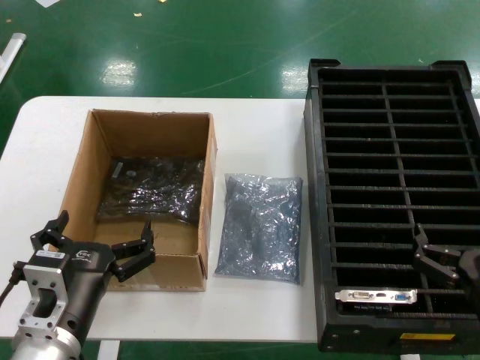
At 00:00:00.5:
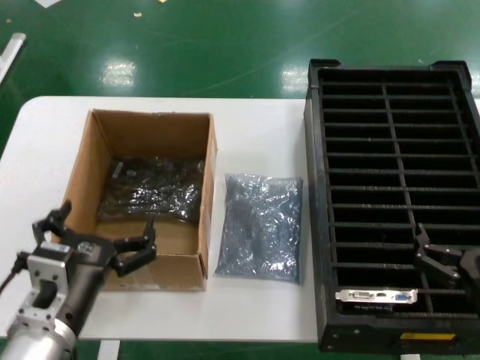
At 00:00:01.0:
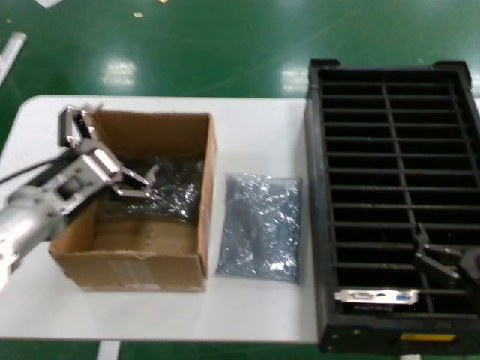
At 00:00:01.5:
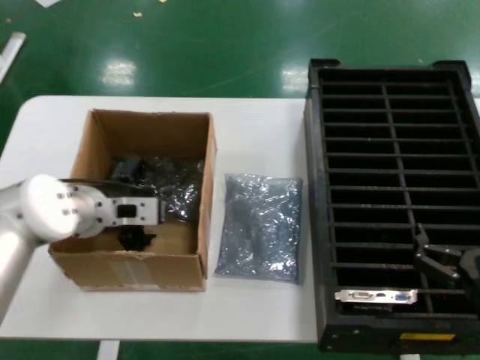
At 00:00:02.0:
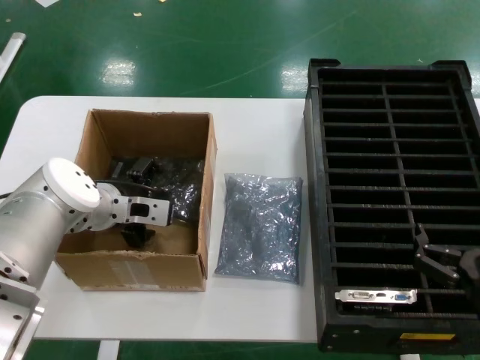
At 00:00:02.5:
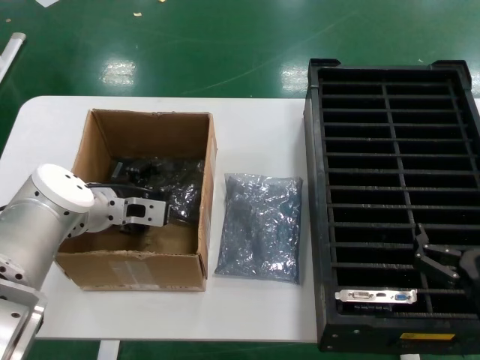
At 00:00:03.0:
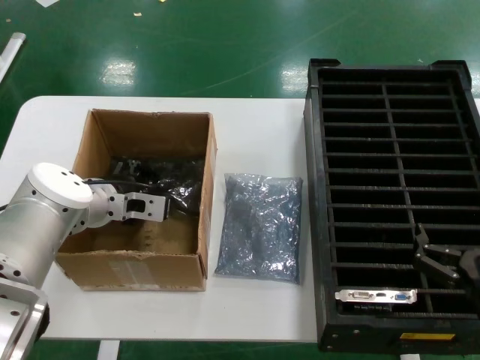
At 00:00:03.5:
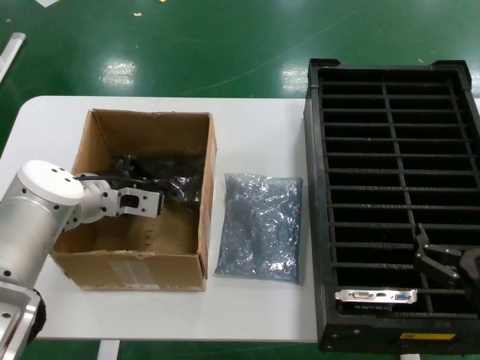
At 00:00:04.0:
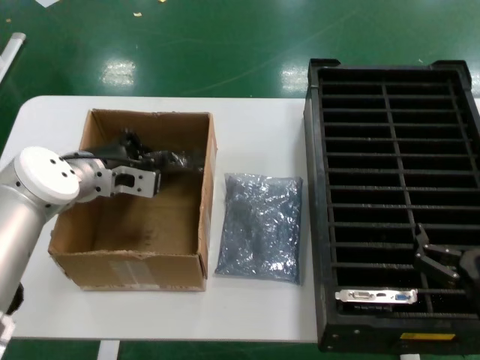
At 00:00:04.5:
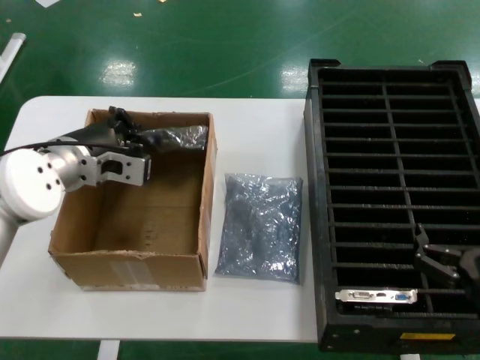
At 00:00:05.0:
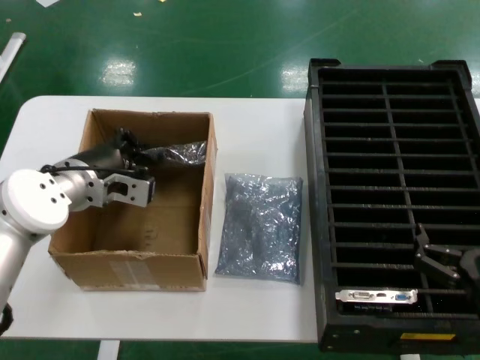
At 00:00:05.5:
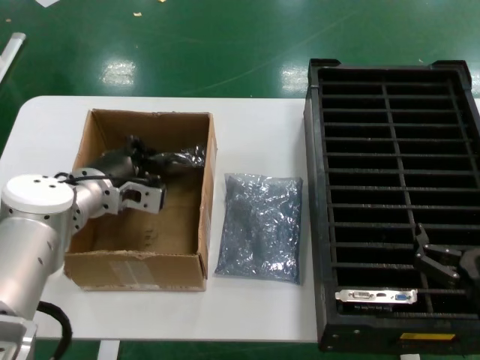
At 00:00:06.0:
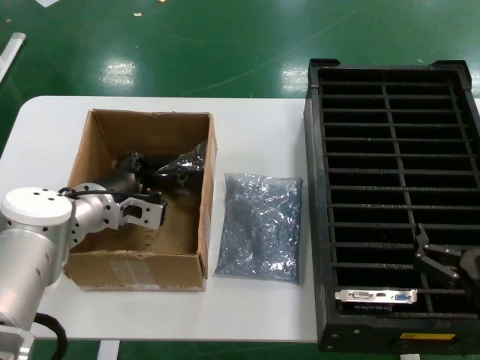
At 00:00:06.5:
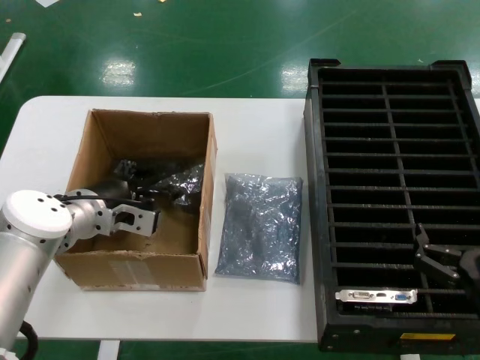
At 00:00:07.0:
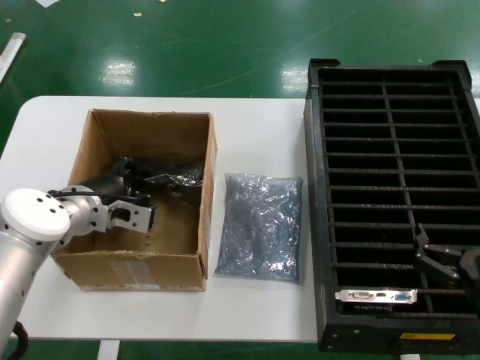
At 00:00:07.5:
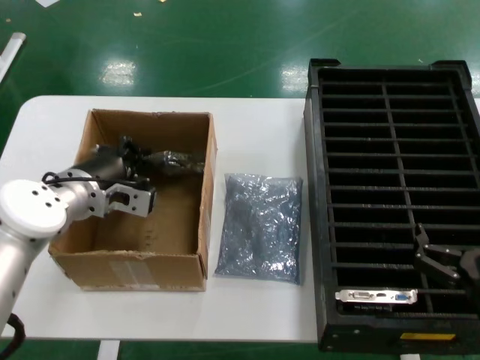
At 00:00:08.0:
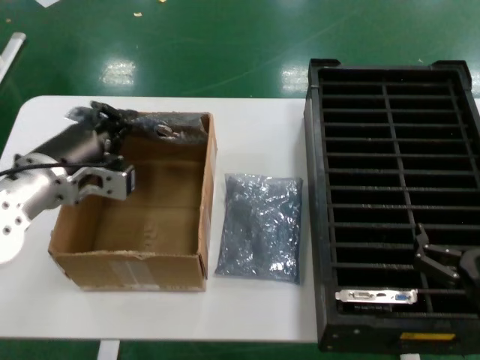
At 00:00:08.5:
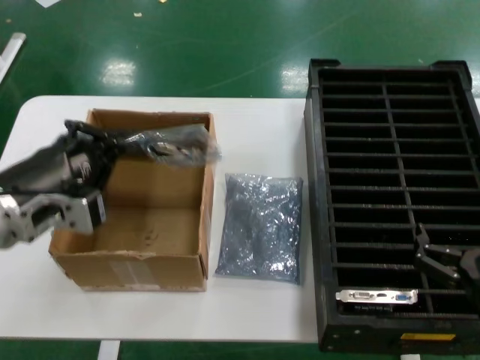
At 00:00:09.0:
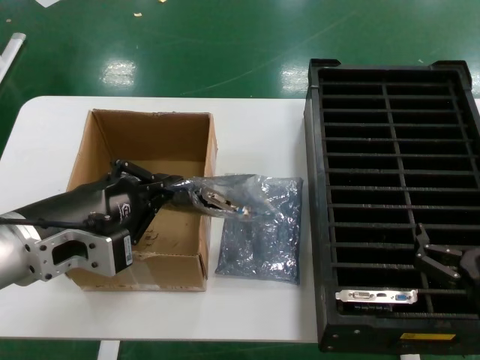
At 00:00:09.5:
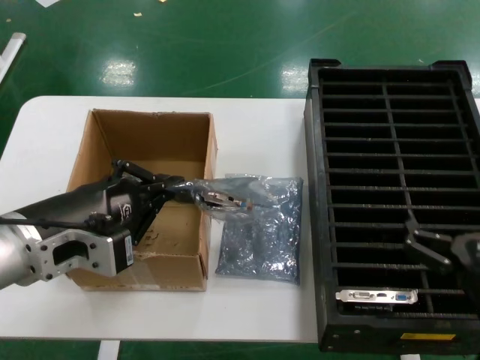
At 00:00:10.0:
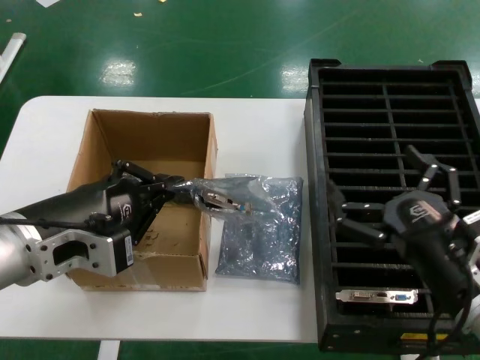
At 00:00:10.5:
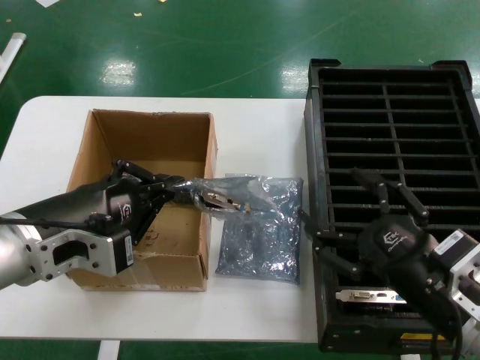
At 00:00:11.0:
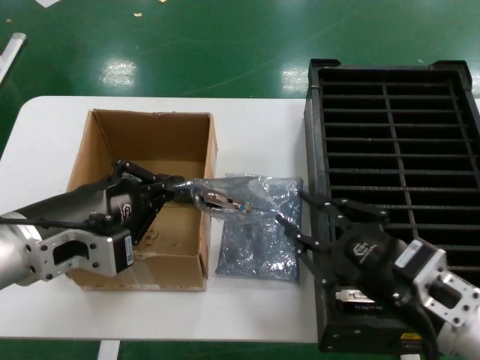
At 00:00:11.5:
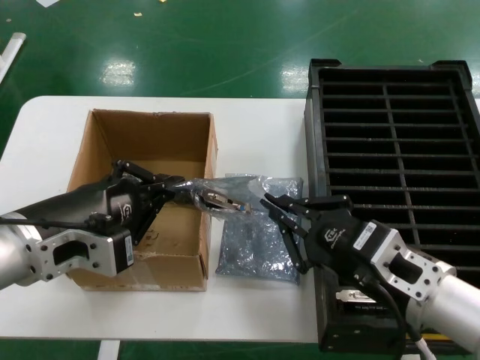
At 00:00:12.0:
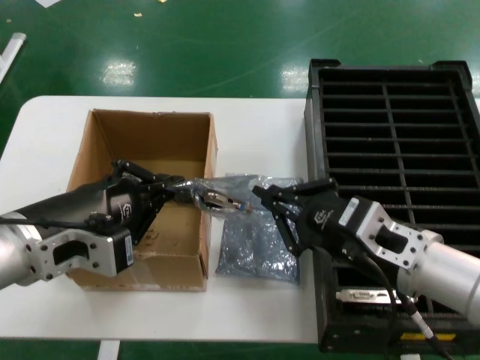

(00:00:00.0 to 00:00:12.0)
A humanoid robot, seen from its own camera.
Task of the whole recording: take out graphics card from box remove packaging put into black container.
Step, 00:00:00.0 - 00:00:03.5: Grasp the bag.
Step, 00:00:04.0 - 00:00:08.5: Lift the bag.
00:00:00.0 - 00:00:02.0: The left hand travels forward by some 25 cm.
00:00:02.0 - 00:00:04.0: There are only small adjustments of the hands.
00:00:04.0 - 00:00:06.0: The left hand moves about 5 cm.
00:00:06.0 - 00:00:08.0: The left hand moves upward and backward, approximately 10 cm.
00:00:08.0 - 00:00:10.0: The left hand moves backward, roughly 15 cm. The right hand is displaced upward by about 5 cm.
00:00:10.0 - 00:00:12.0: The right hand travels forward by about 5 cm.

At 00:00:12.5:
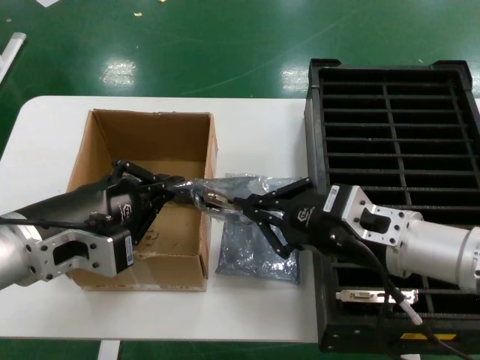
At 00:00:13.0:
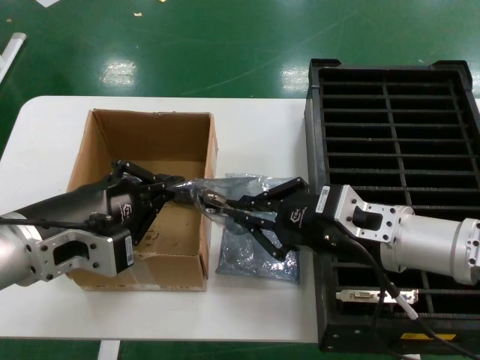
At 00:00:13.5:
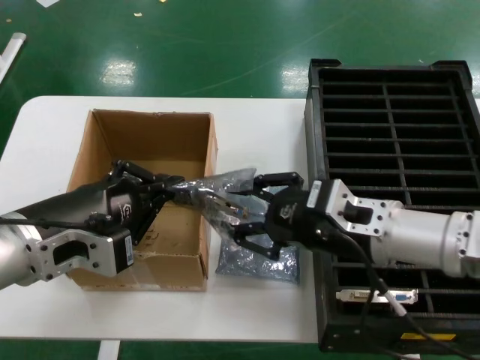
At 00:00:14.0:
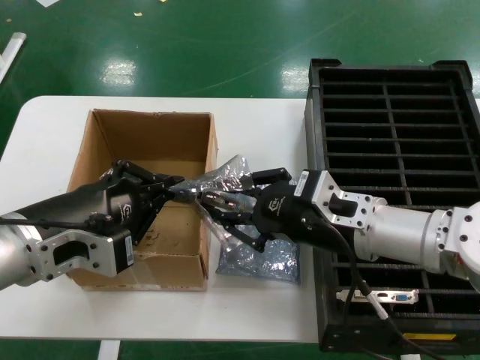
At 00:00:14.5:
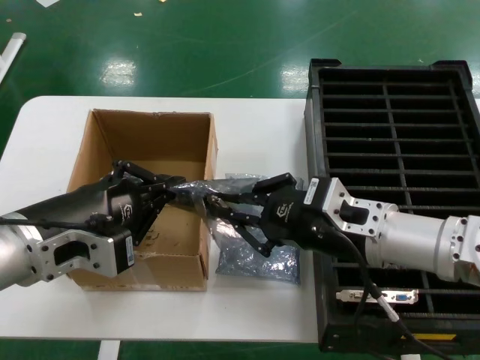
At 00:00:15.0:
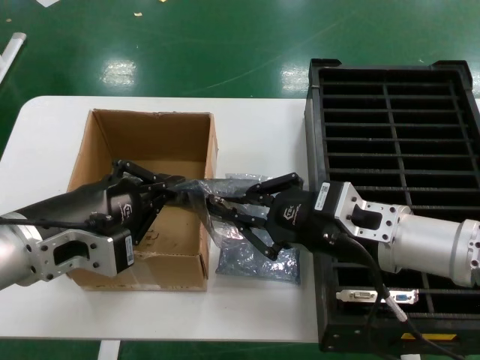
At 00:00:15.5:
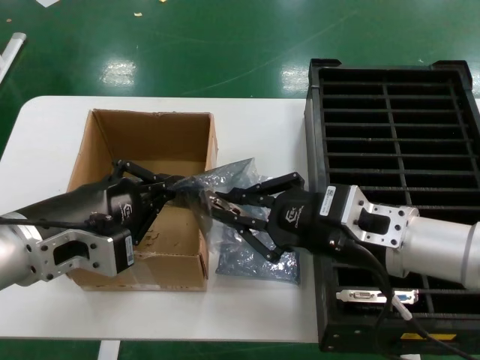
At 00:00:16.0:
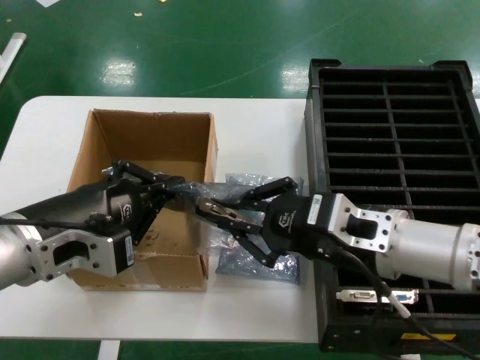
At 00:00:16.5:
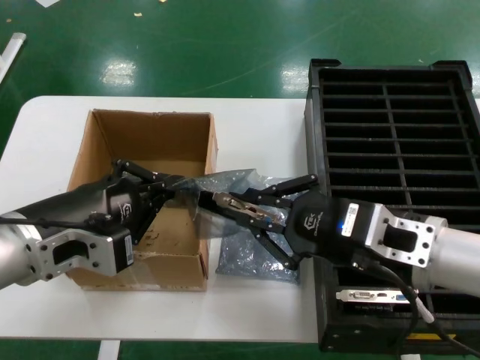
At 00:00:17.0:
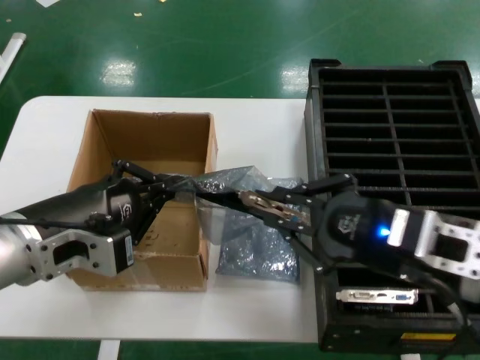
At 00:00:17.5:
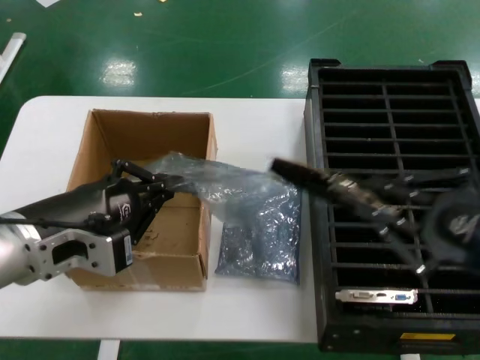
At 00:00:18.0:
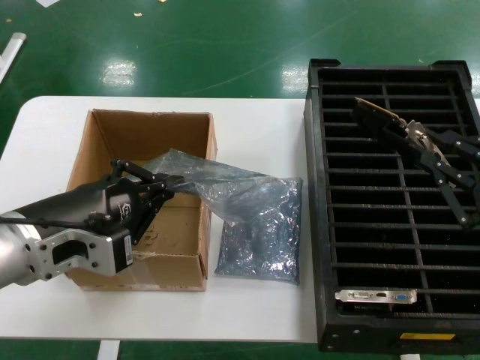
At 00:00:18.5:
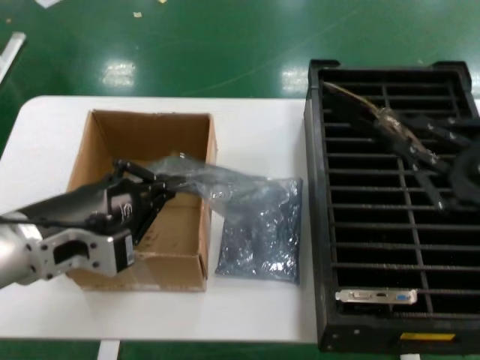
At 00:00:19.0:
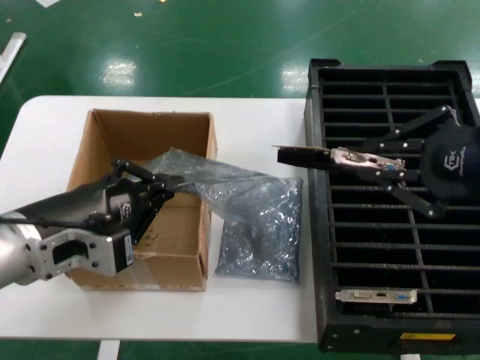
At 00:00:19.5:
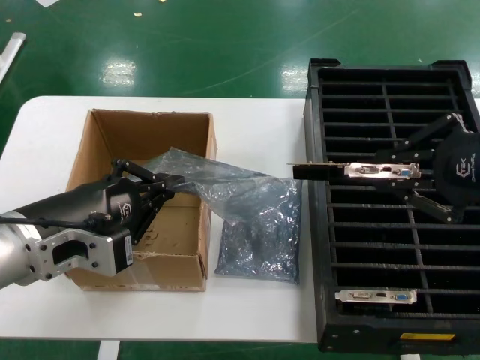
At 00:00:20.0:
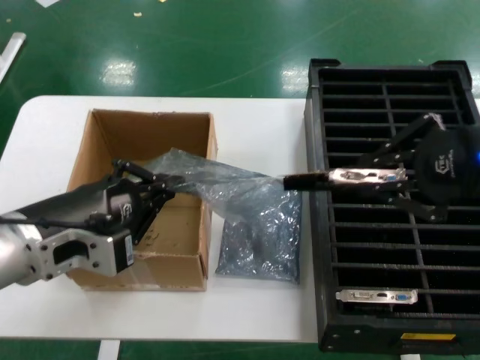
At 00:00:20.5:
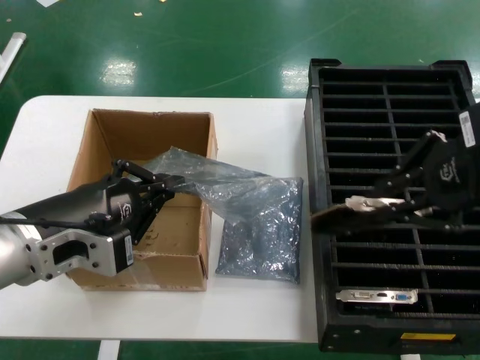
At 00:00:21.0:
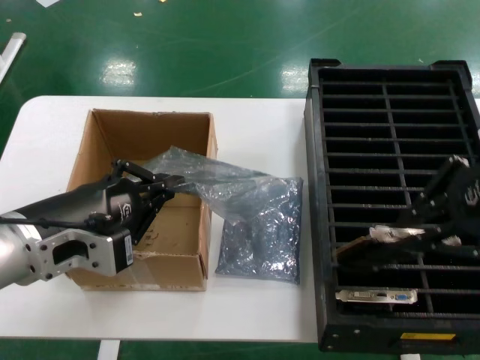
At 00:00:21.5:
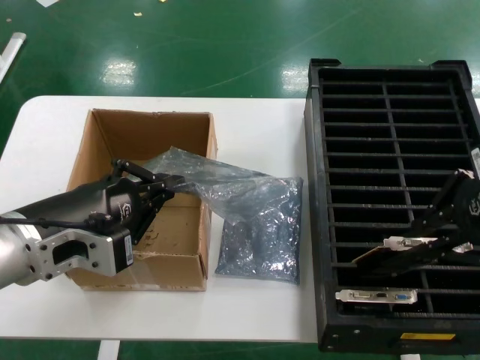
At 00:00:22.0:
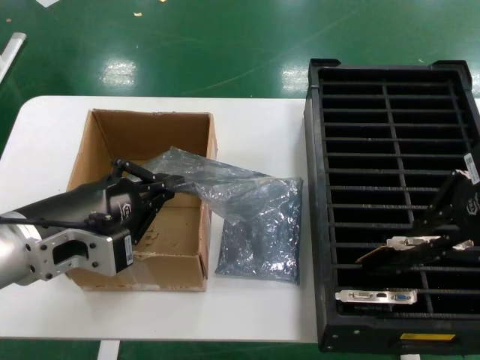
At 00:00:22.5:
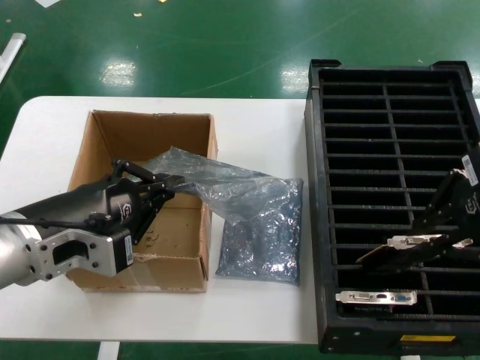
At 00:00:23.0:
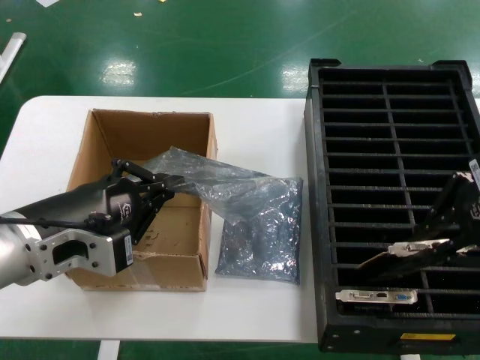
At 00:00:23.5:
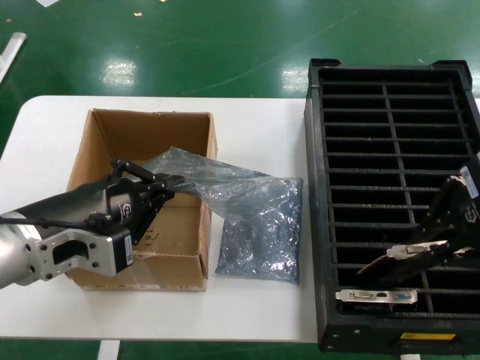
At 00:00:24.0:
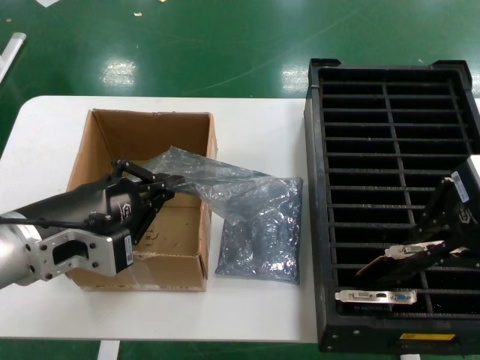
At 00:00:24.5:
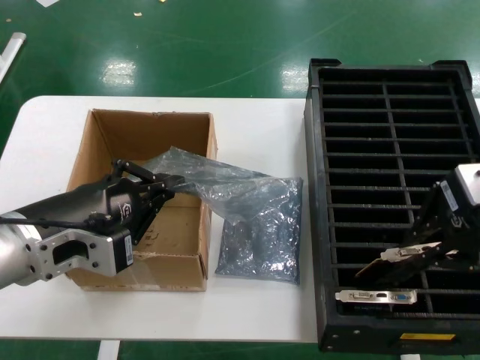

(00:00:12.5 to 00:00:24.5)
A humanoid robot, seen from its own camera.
Task of the whole recording: take out graphics card from box remove packaging put into black container.
Step, 00:00:12.5 - 00:00:17.5: Take out the hard disk of the bag.
00:00:12.5 - 00:00:14.5: The hands stay close to where they were, moving slightly.
00:00:14.5 - 00:00:16.5: The right hand is displaced backward by some 5 cm.
00:00:16.5 - 00:00:18.5: The right hand travels to the right, backward and upward by approximately 15 cm.
00:00:18.5 - 00:00:20.5: The right hand heads upward and forward, covering some 15 cm.
00:00:20.5 - 00:00:24.5: The hands move only a little.

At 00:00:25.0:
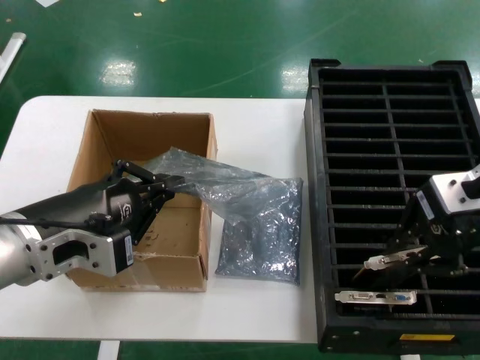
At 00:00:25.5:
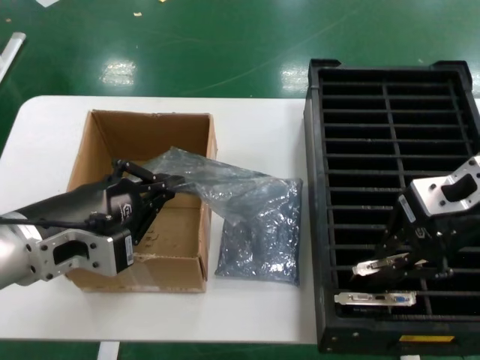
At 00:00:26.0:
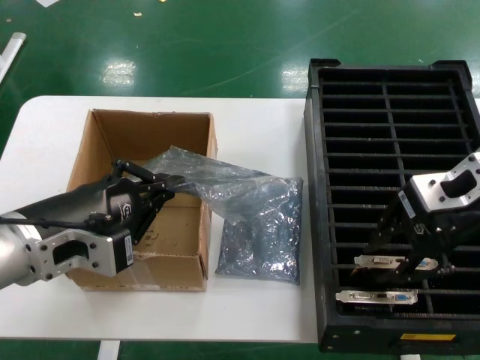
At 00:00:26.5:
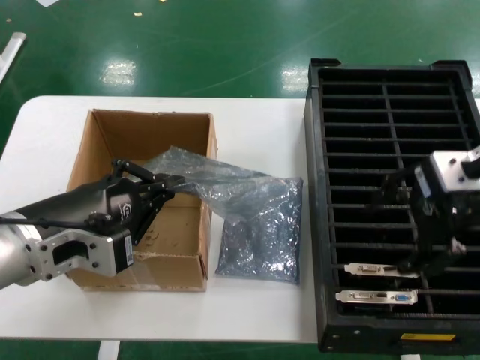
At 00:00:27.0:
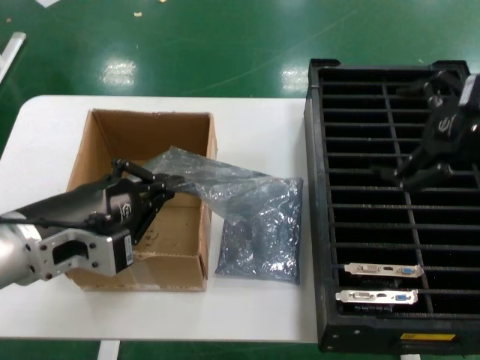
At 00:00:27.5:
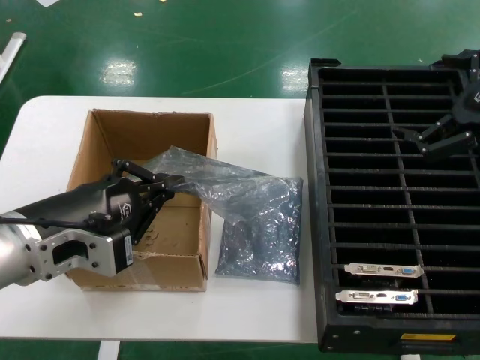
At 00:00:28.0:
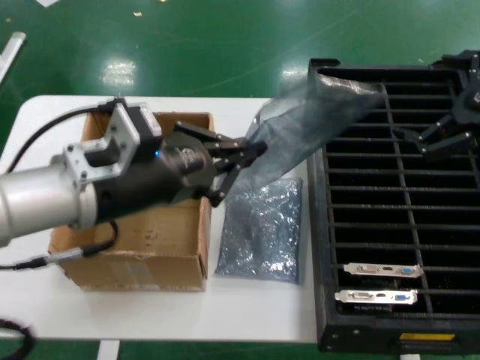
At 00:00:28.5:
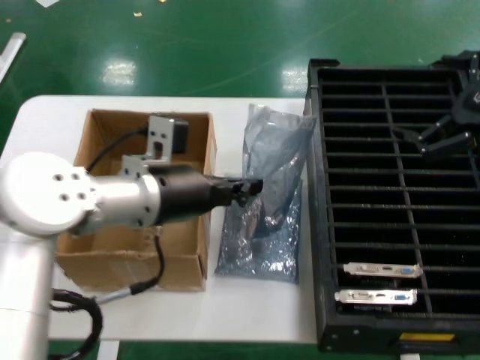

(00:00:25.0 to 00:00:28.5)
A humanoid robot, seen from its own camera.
Task of the whole recording: take out graphics card from box remove packaging put into black container.
00:00:27.0 - 00:00:28.5: The left hand shifts some 15 cm forward and to the right. Meanwhile the right hand changes place by some 5 cm.
